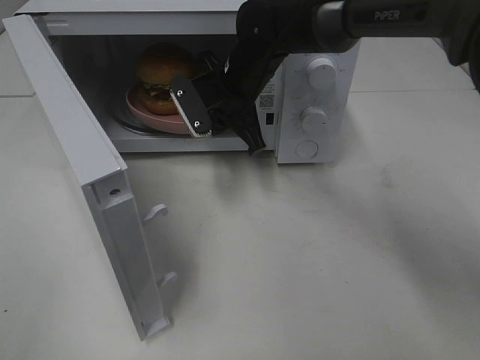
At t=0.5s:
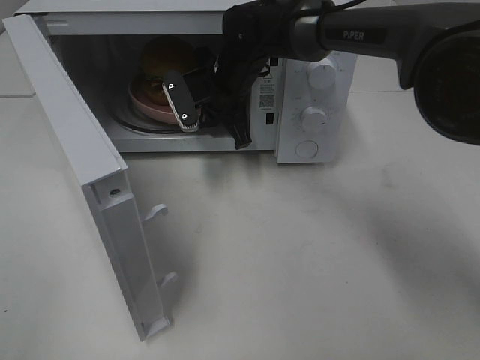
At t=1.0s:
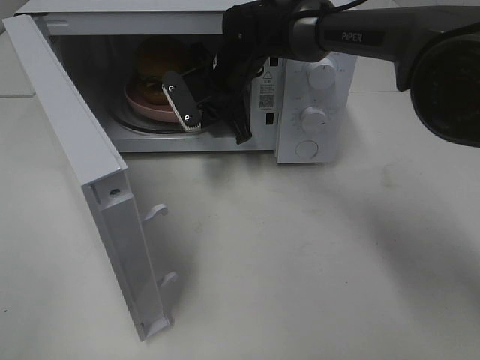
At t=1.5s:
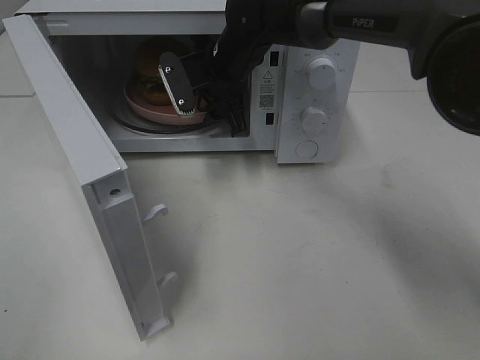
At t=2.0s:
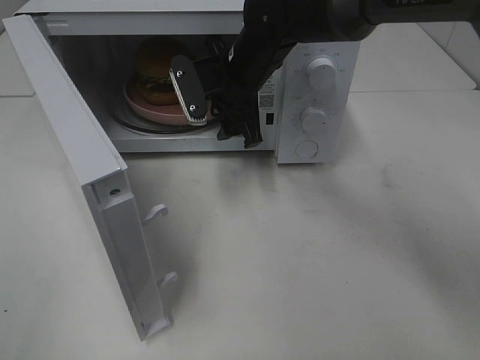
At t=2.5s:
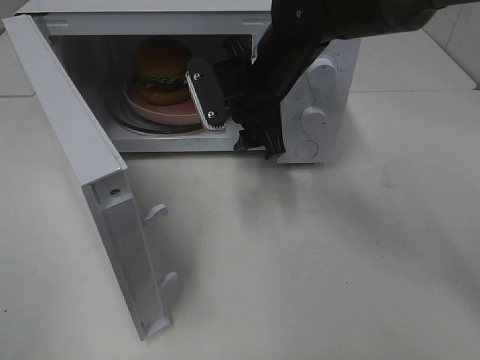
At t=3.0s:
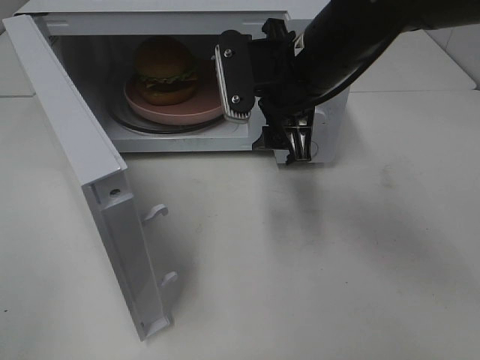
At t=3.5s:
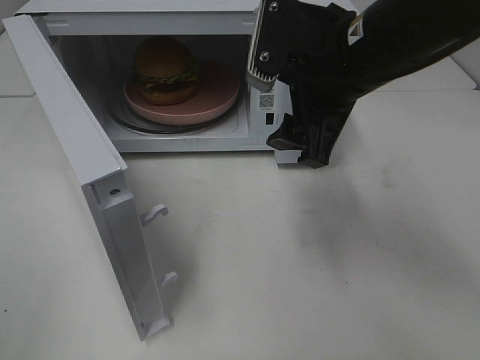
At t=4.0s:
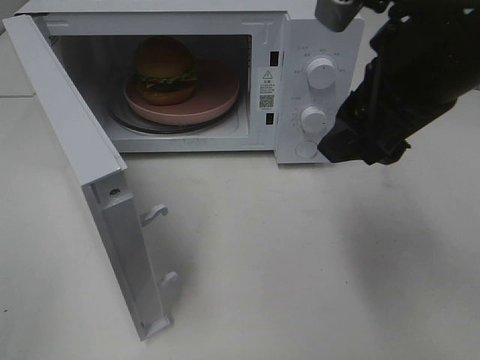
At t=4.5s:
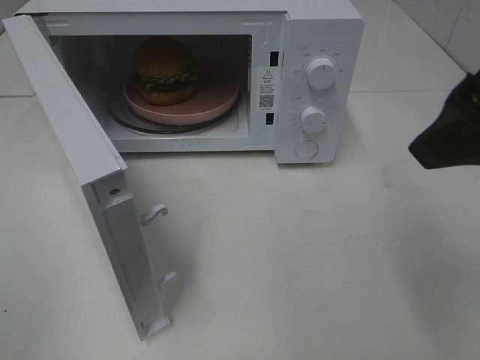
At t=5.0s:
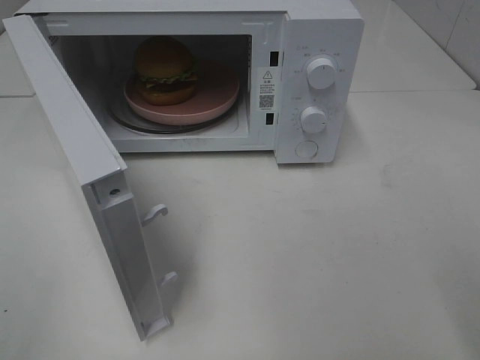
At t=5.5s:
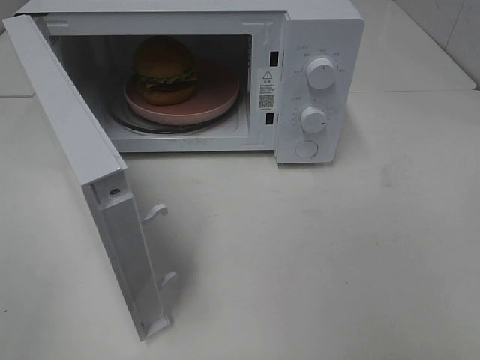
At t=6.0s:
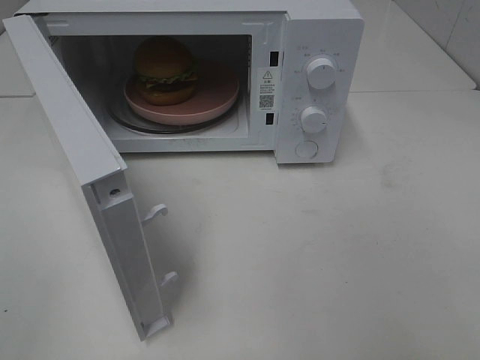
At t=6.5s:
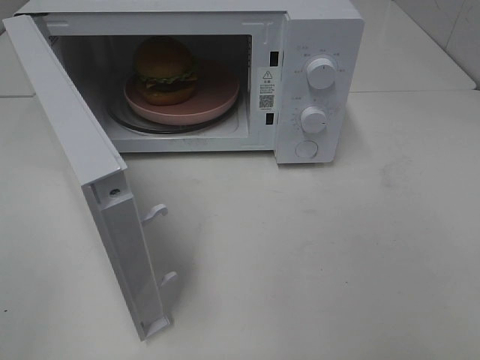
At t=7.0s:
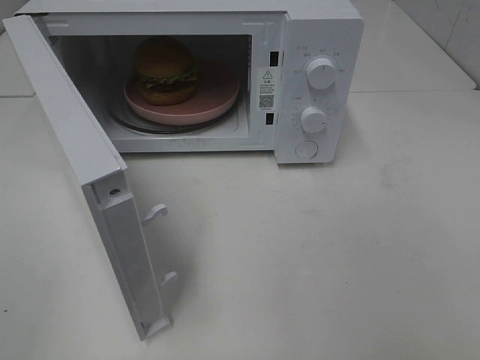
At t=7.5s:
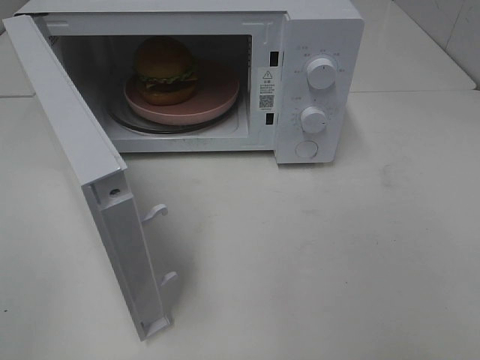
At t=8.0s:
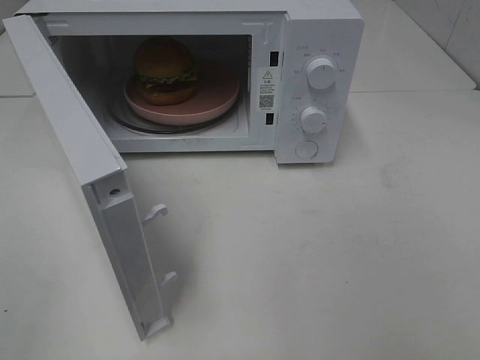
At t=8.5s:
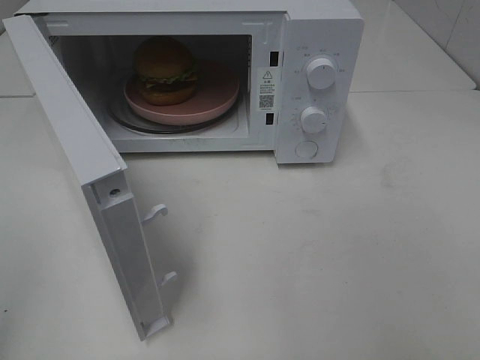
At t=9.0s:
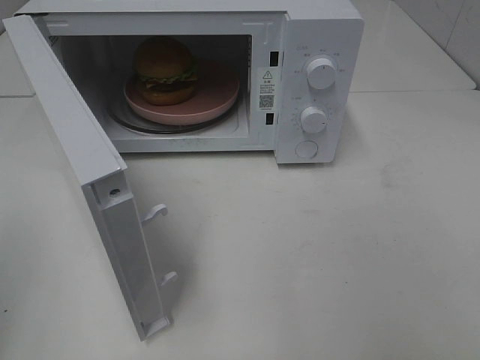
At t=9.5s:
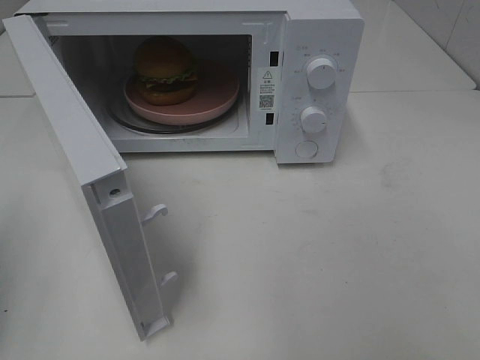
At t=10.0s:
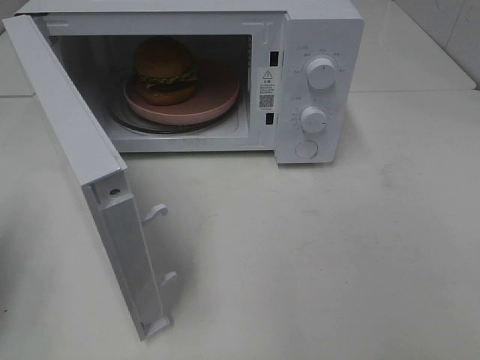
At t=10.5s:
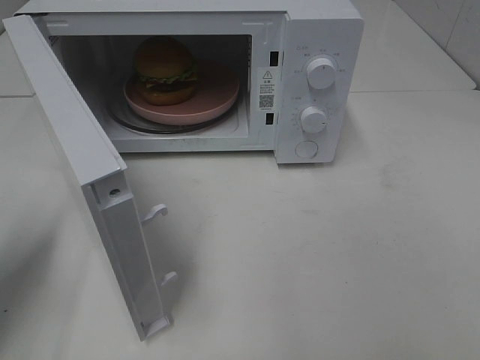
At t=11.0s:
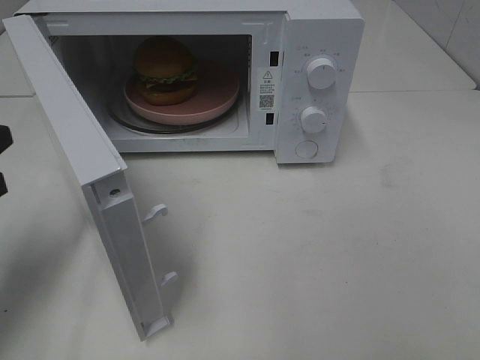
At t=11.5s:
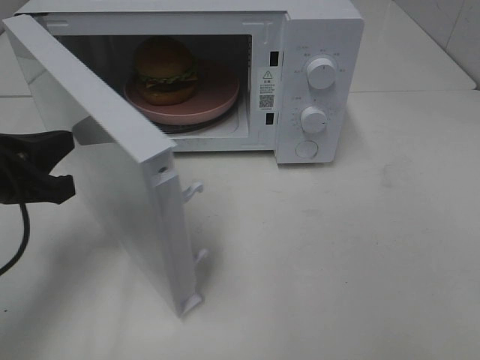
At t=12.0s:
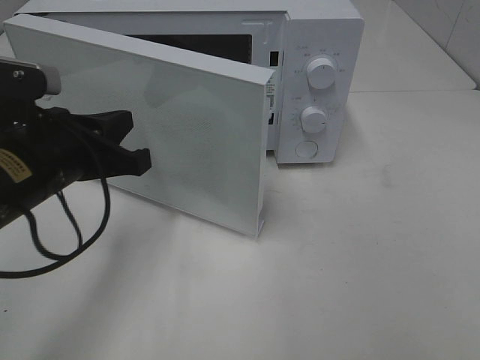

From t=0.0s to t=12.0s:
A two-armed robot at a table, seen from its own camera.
Task of the whole recording: Heat the burger.
From t=0.0s to t=2.0s: The right gripper opens its fingers.
From t=2.0s to t=4.0s: The right gripper goes some 25 cm backward, to the right and upward.
From t=4.0s to t=6.0s: The right gripper goes roughly 25 cm backward and to the right.
From t=8.0s to t=10.0s: The left gripper moves forward and downward, roughly 15 cm, and closes.
From t=10.0s to t=12.0s: The left gripper travels to the right and forward by roughly 20 cm.

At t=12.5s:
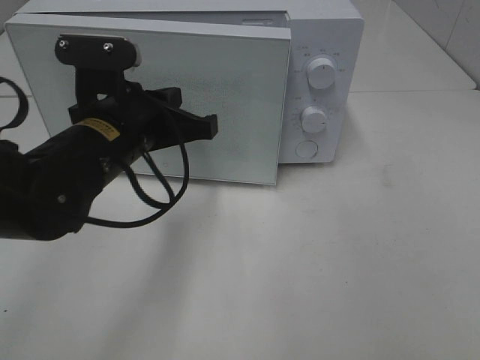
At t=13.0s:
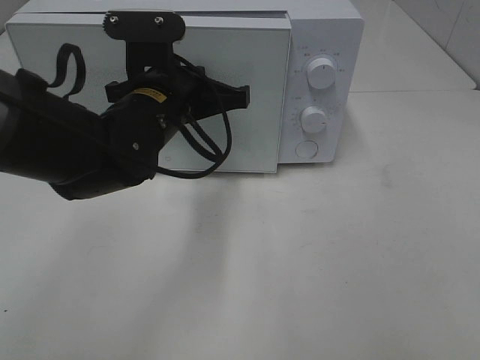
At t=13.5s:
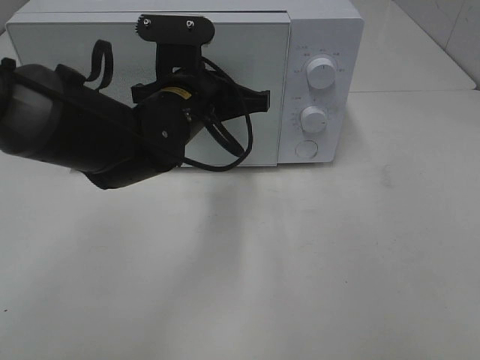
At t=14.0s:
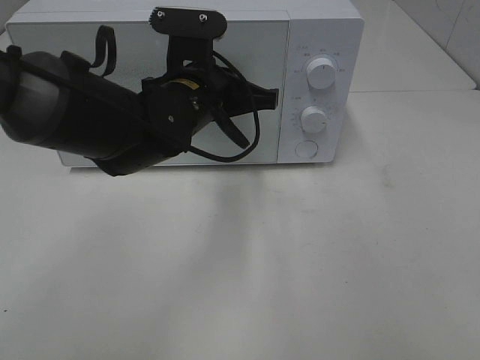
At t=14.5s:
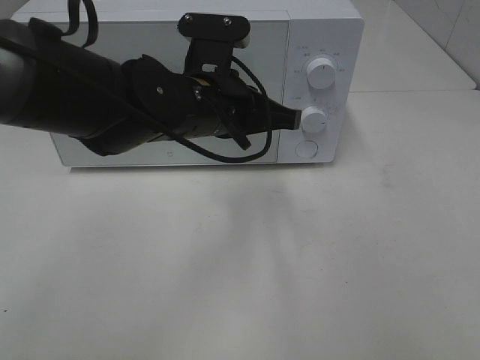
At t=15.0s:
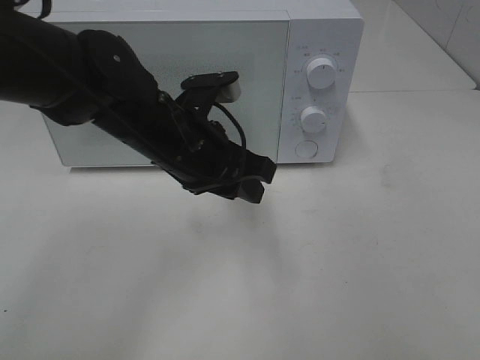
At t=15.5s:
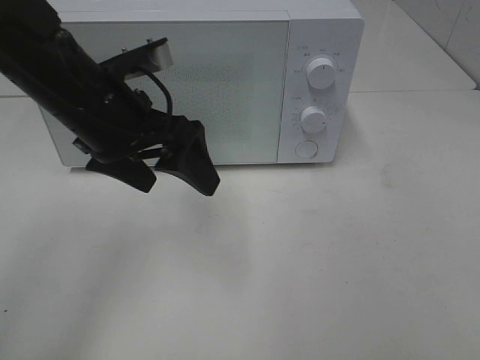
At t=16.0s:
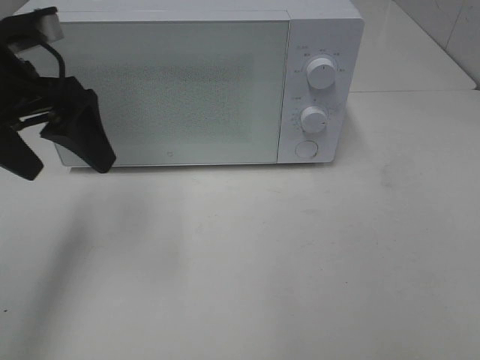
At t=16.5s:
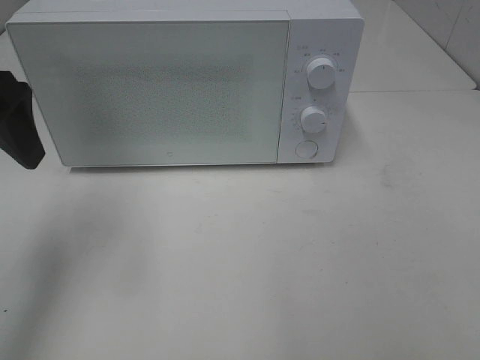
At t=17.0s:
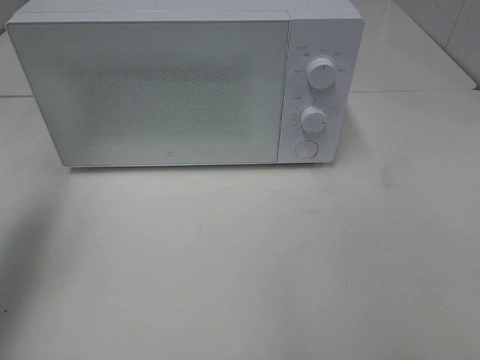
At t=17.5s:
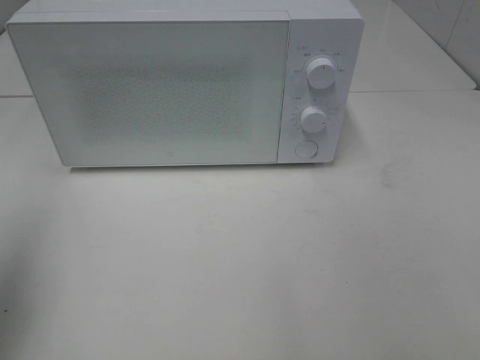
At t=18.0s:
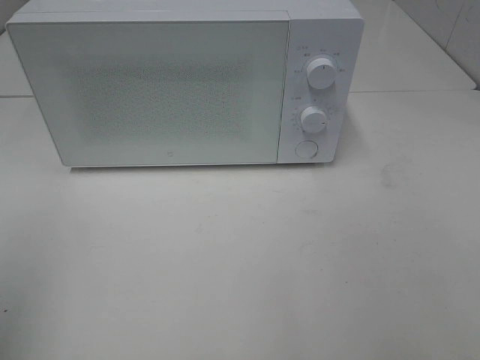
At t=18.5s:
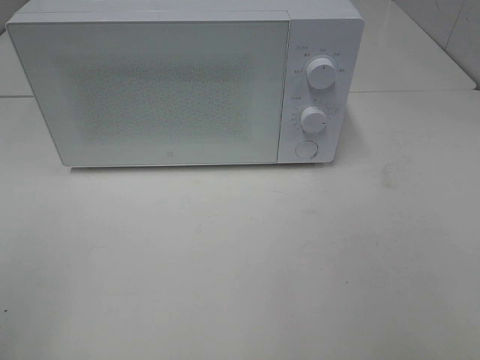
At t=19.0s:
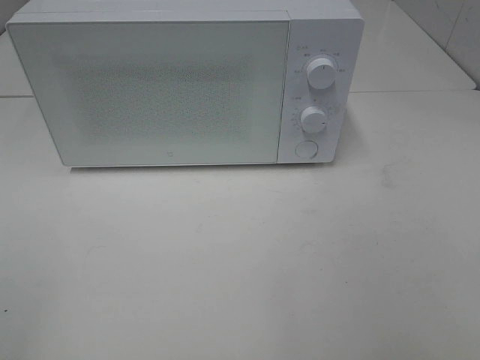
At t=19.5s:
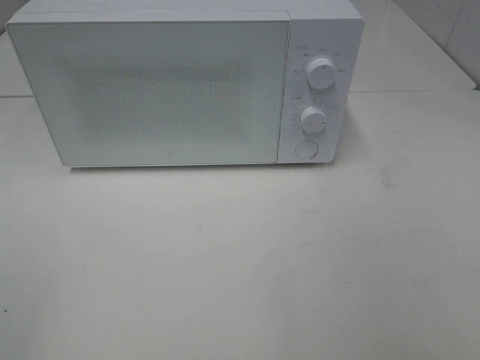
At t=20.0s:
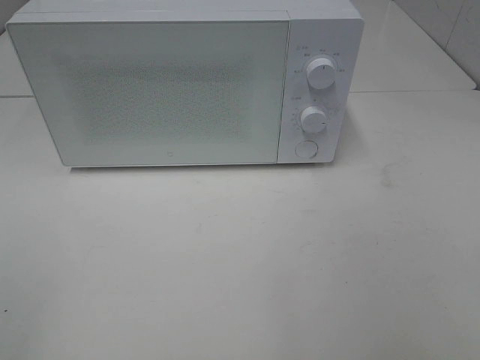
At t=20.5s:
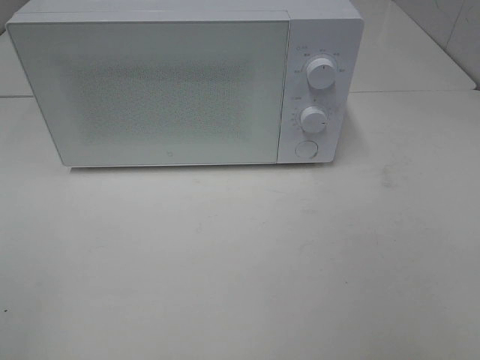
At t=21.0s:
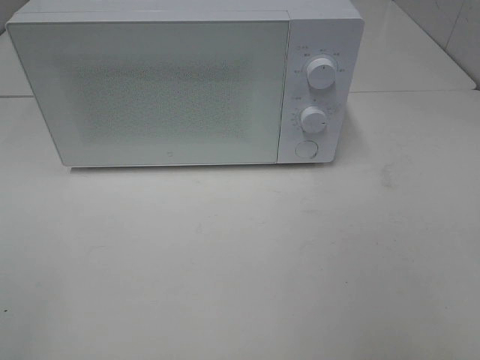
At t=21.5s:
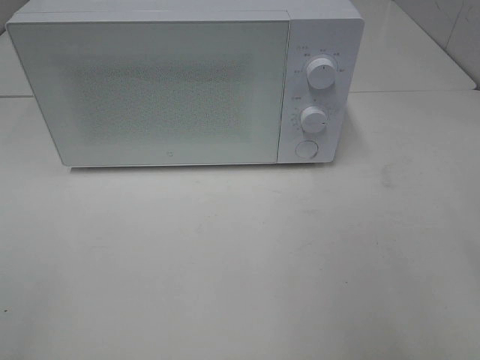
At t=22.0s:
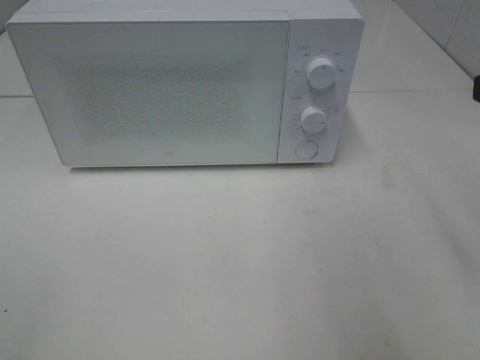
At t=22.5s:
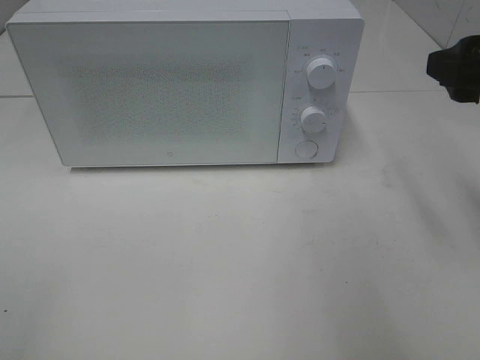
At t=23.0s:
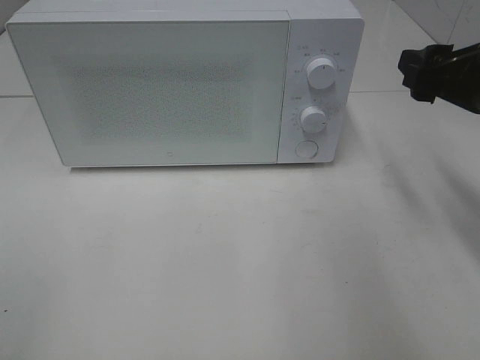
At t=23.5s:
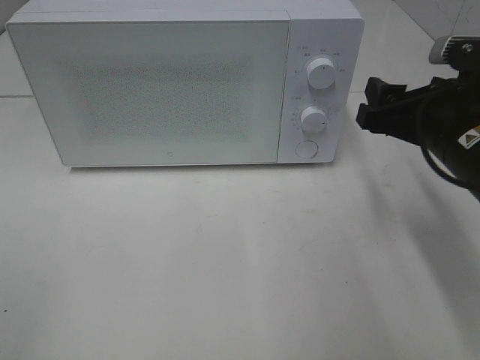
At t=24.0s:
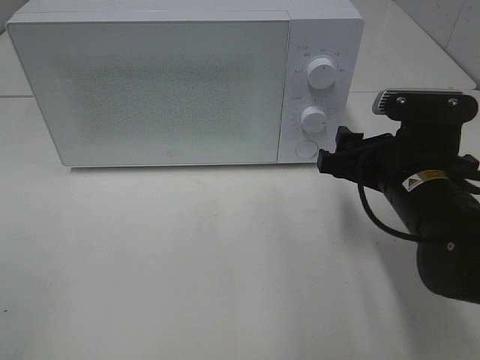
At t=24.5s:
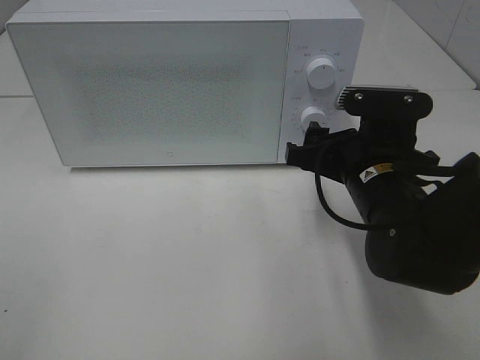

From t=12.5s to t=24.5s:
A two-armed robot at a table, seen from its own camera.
Task of the whole recording: Heat the burger.
Step, from t=12.5s to t=14.5s: Left hand: close the microwave door.
From t=12.5s to t=14.5s: The left gripper is displaced to the right by some 10 cm.
From t=14.5s to t=16.5s: The left gripper travels to the left and upward by some 25 cm, and opens its fingers.
From t=16.5s to t=18.5s: The left gripper goes about 25 cm backward.
From t=20.5s to t=22.5s: The right gripper moves forward, some 25 cm.
From t=22.5s to t=24.5s: The right gripper travels downward and to the left by roughly 20 cm.

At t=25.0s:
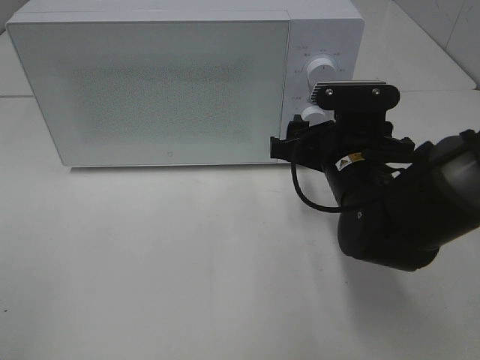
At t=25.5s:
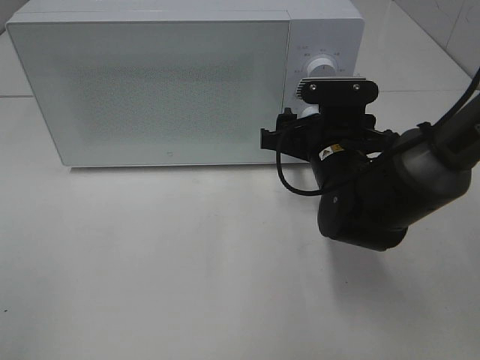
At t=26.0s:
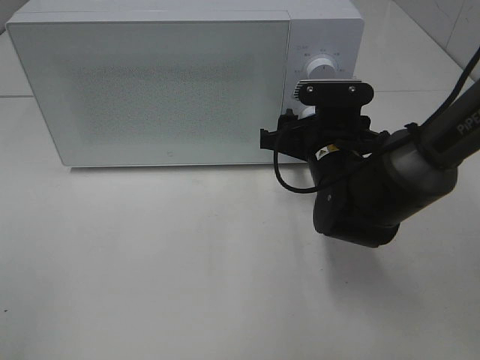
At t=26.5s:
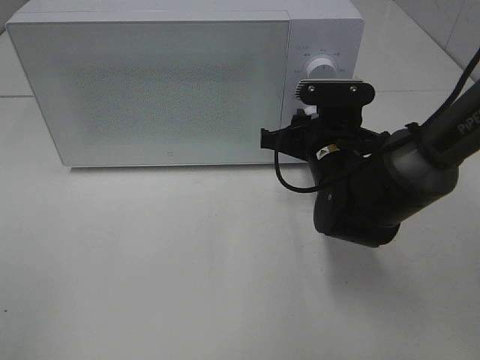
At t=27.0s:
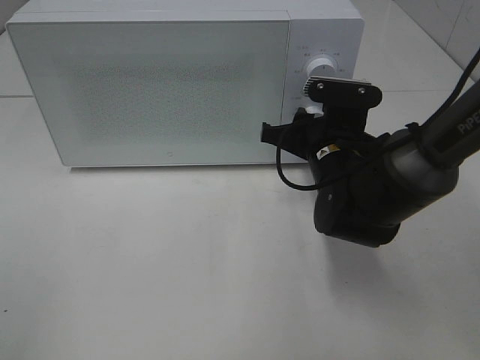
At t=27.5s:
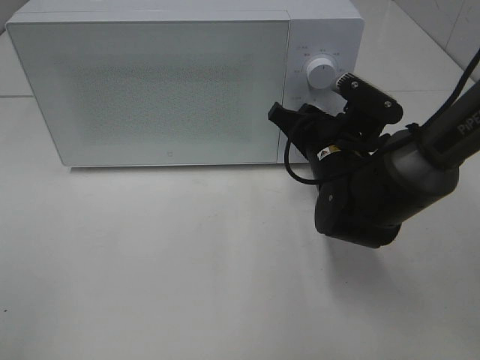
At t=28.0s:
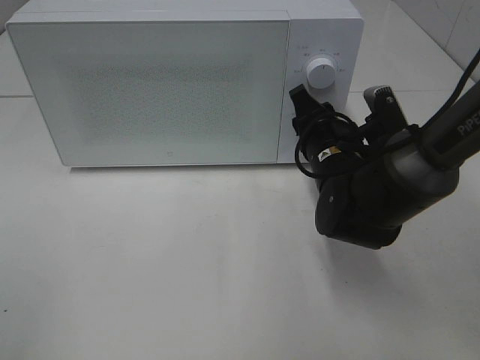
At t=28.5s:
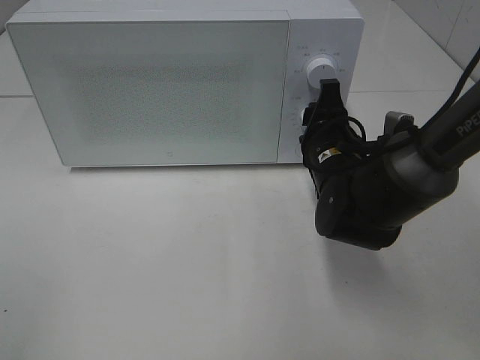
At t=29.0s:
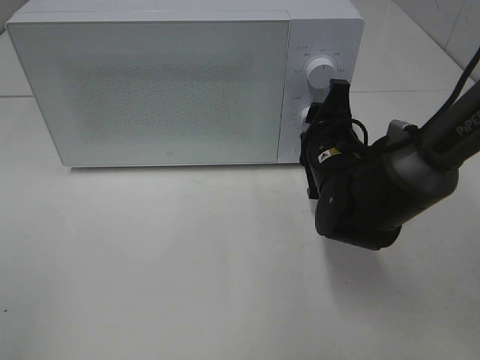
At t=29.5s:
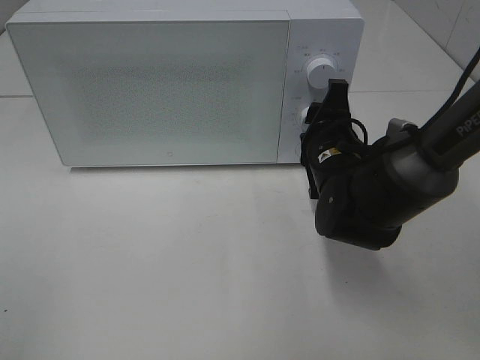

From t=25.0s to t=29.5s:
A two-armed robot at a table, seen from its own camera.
Task of the whole recording: Heat the burger.
From t=25.0s to t=27.0s: The right gripper closes its fingers.
